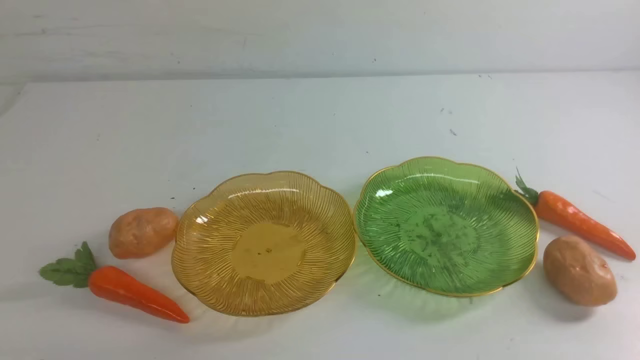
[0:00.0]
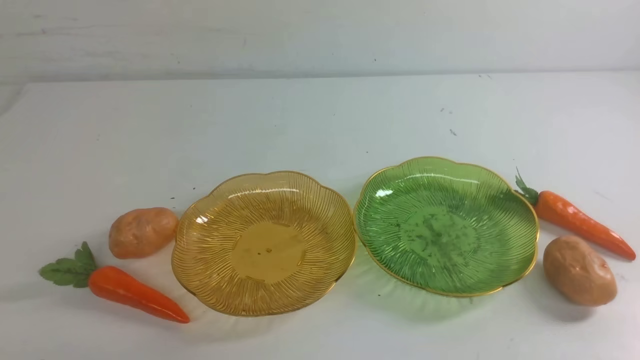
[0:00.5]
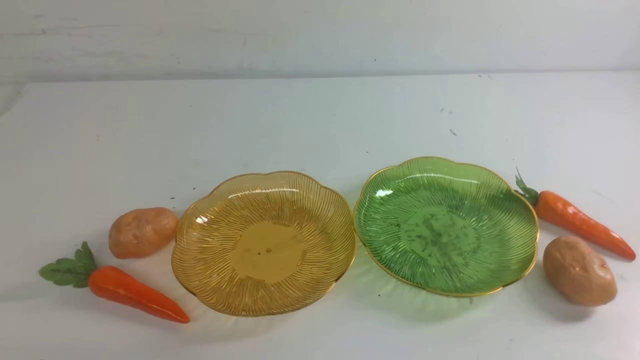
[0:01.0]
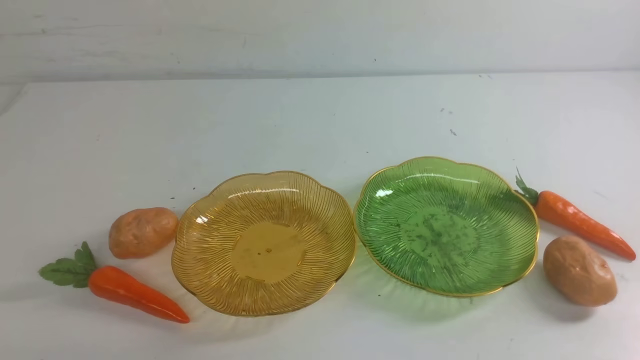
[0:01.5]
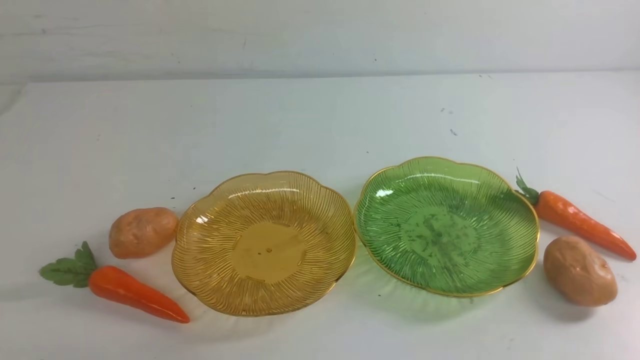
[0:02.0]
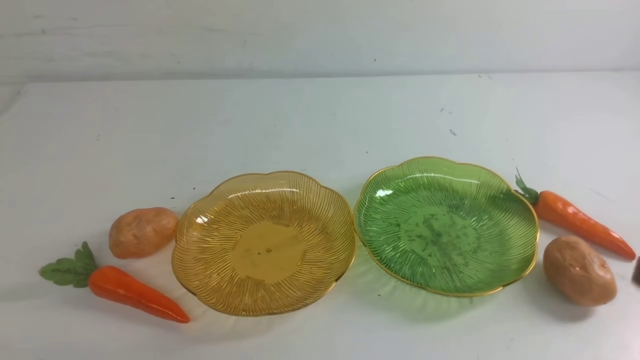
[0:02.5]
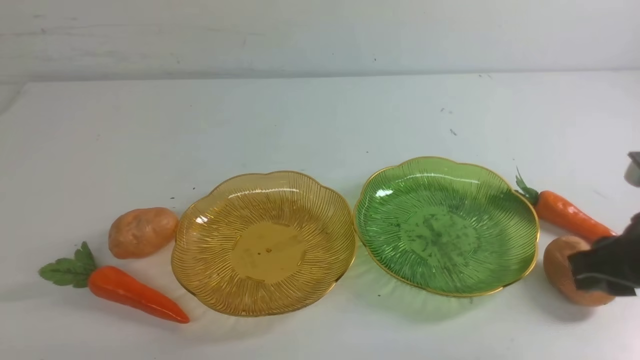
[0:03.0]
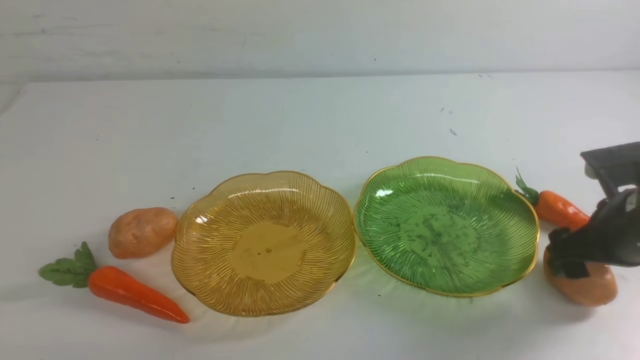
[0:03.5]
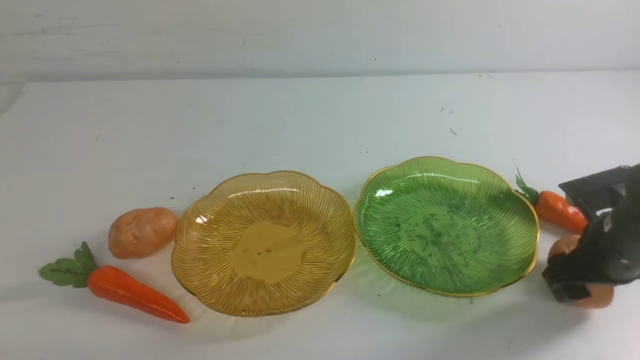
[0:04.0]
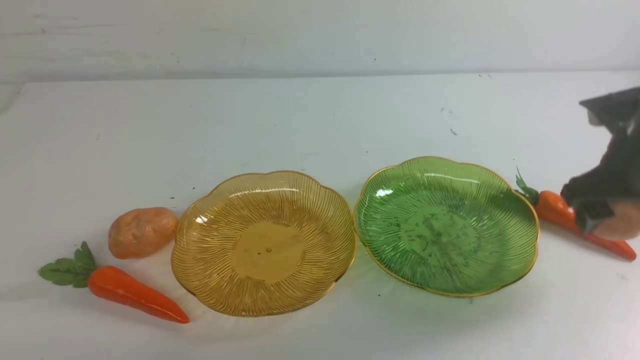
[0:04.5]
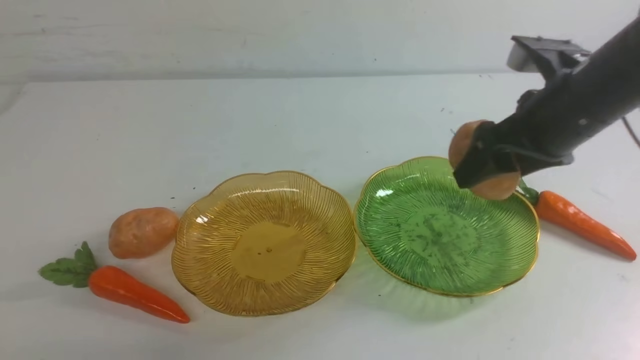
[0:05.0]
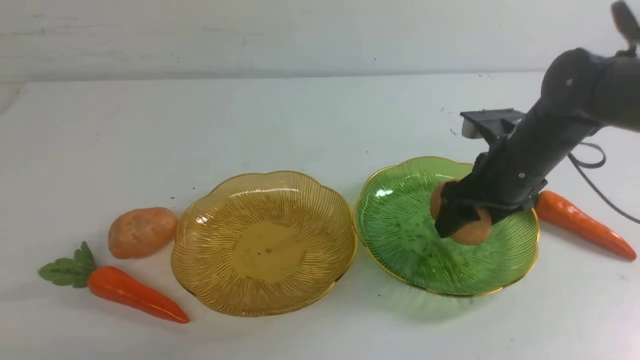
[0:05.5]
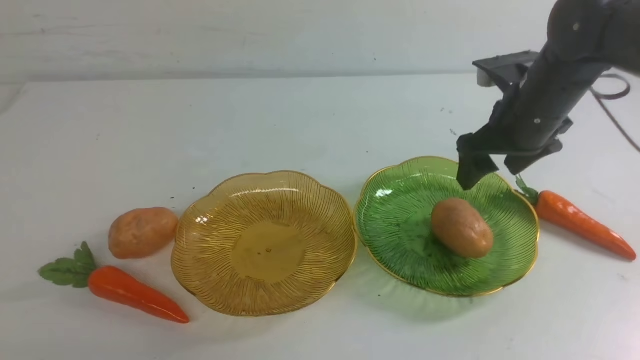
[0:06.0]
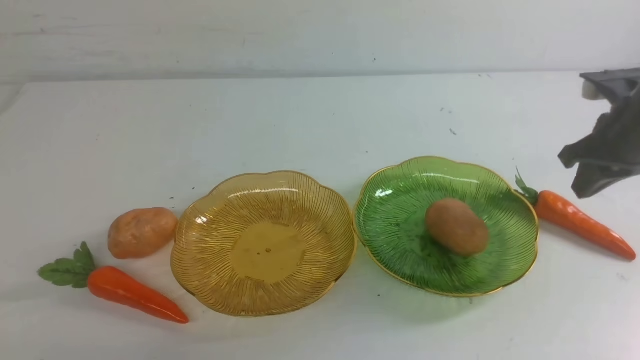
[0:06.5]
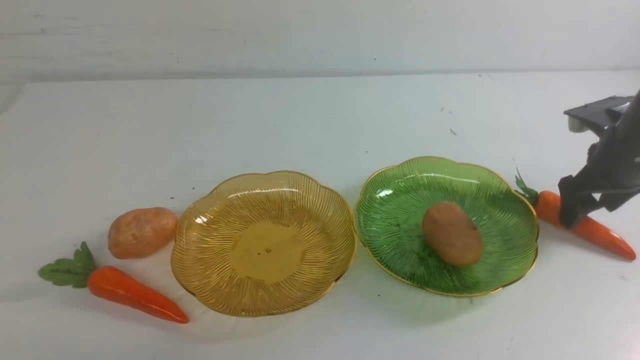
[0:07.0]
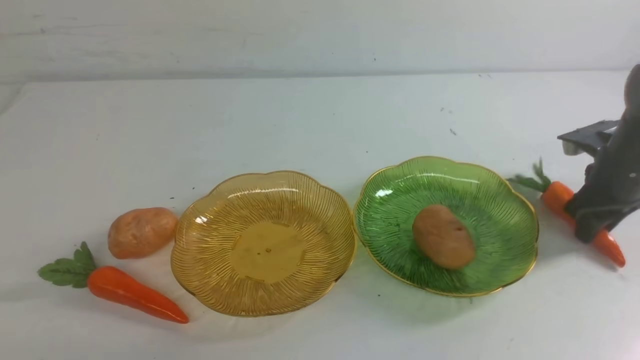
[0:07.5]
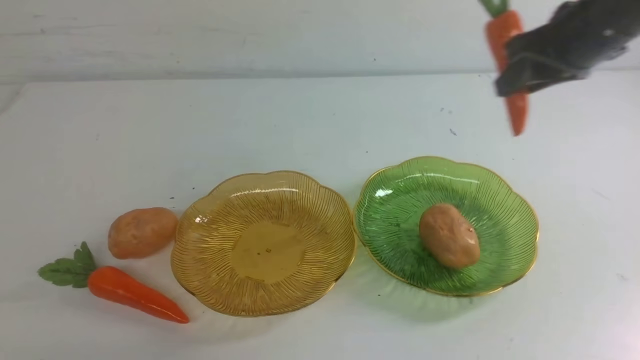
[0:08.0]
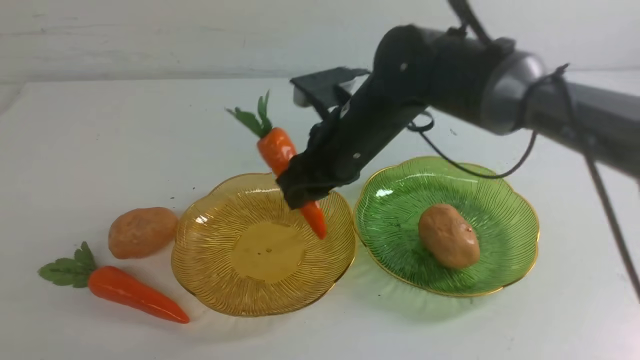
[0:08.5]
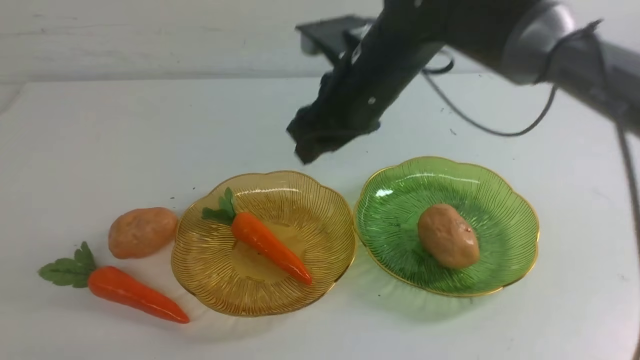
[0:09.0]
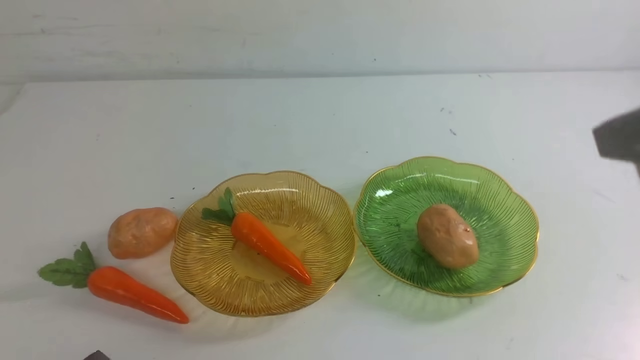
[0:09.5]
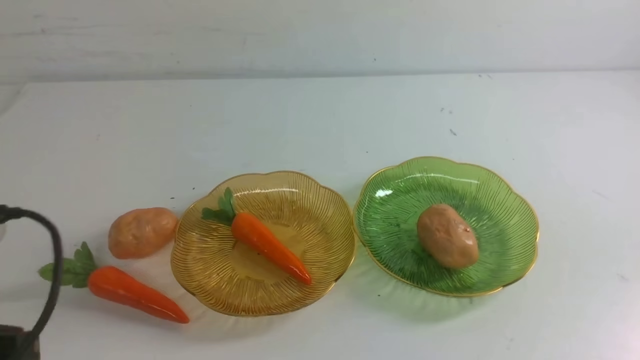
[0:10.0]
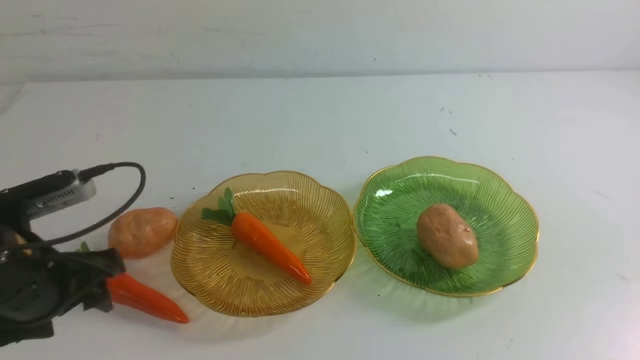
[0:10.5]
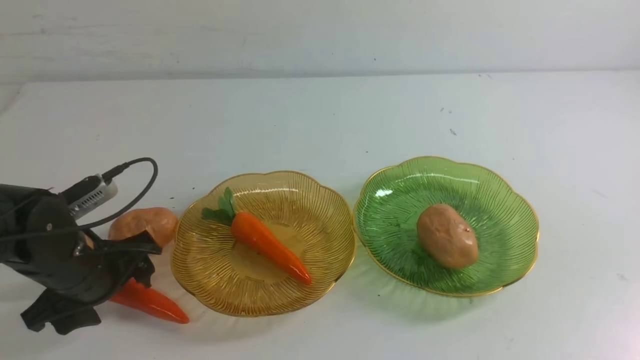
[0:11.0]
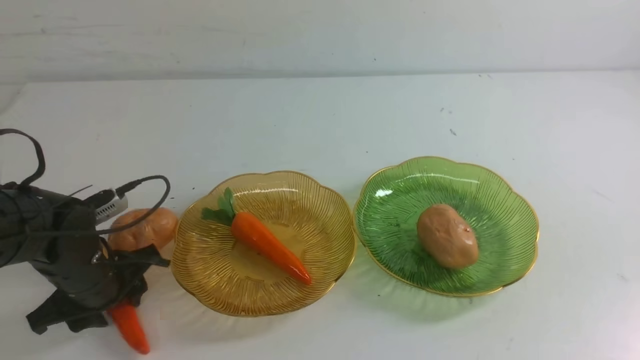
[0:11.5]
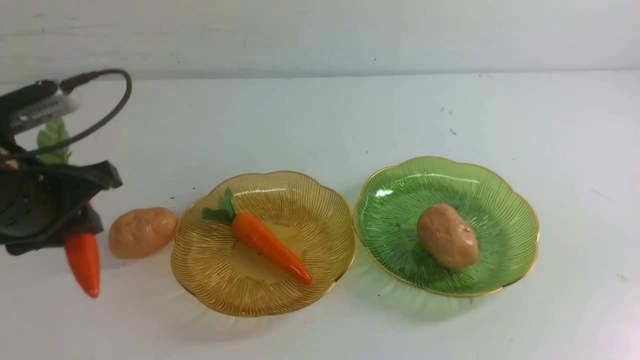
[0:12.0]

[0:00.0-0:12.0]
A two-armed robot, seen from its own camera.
Step, 0:00.0 to 0:05.5: Grab a potato with your right arm and put it on the right plate.
Step, 0:06.0 to 0:08.5: use the right arm to grab a carrot and put it into the left plate.
0:02.0 to 0:04.0: The right gripper travels forward by roughly 25 cm, and opens.
0:04.0 to 0:06.0: The right gripper travels downward, forward and to the right by some 10 cm.
0:06.0 to 0:08.0: The right gripper travels to the left by about 30 cm.
0:08.0 to 0:10.0: The right gripper goes about 40 cm backward, to the right and upward, and closes its fingers. Meanwhile the left gripper travels forward by approximately 20 cm, and opens up.
0:10.0 to 0:12.0: The left gripper is displaced to the right and forward by some 10 cm, travels upward and back again, about 10 cm each way, and closes, then opens again.

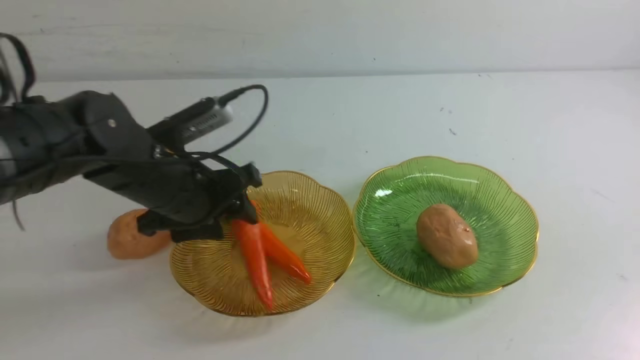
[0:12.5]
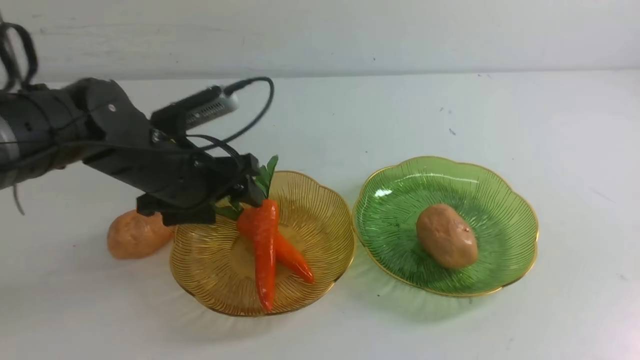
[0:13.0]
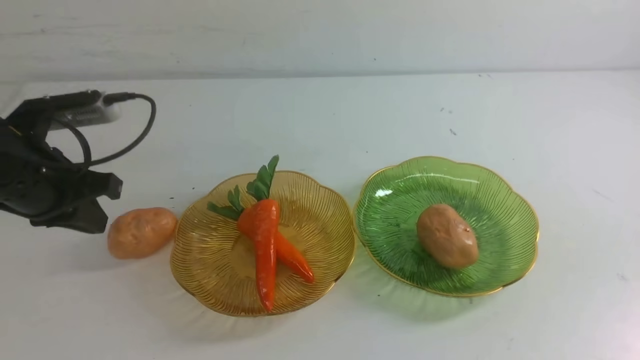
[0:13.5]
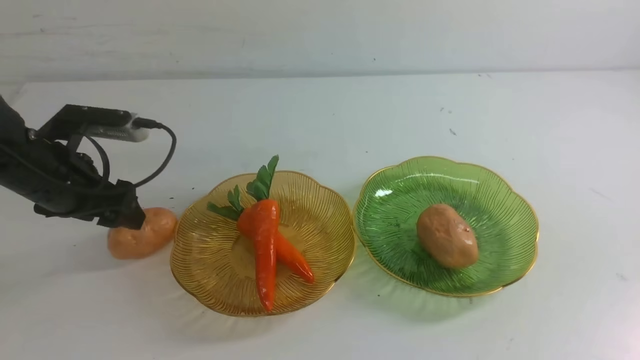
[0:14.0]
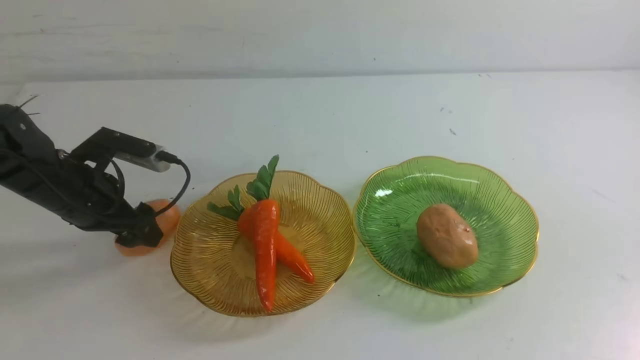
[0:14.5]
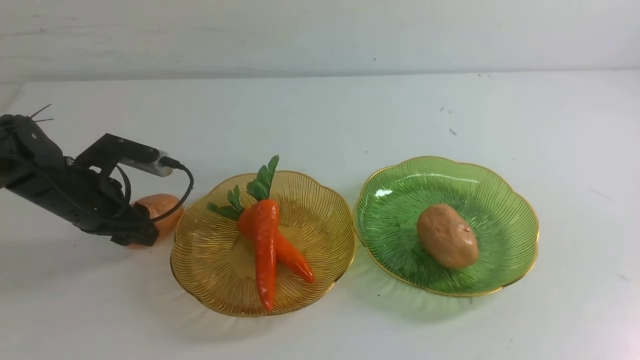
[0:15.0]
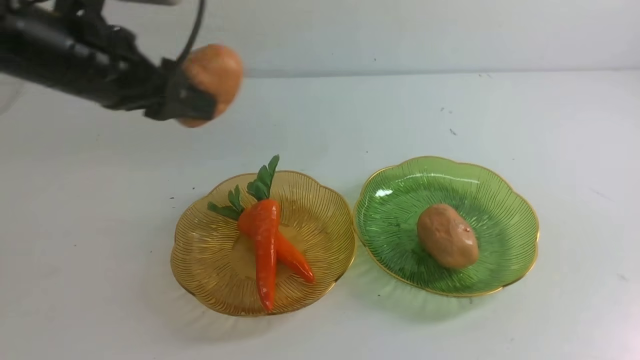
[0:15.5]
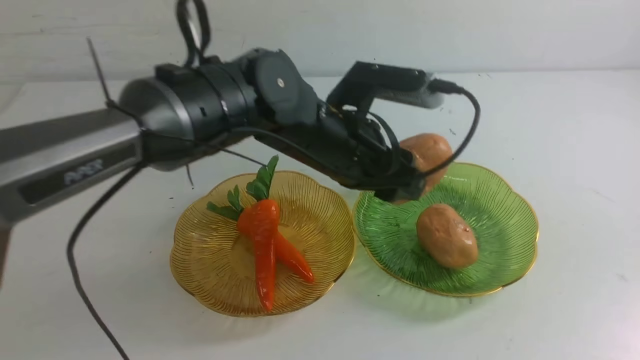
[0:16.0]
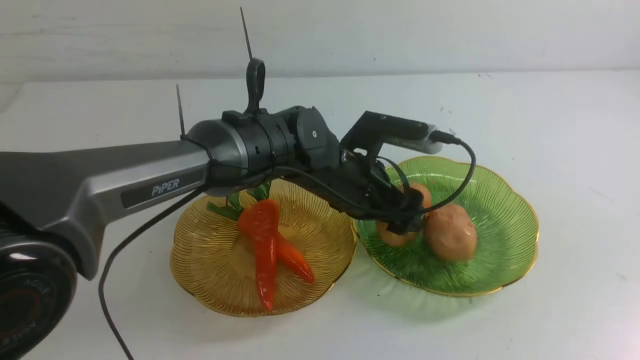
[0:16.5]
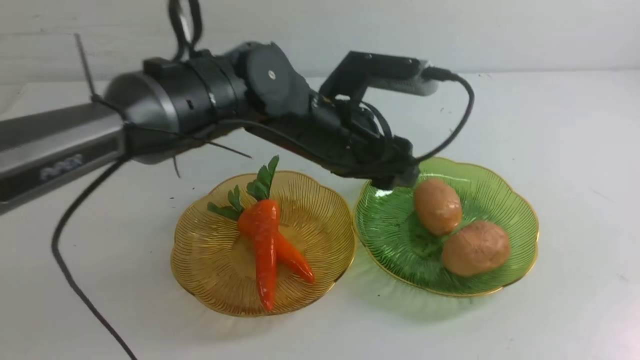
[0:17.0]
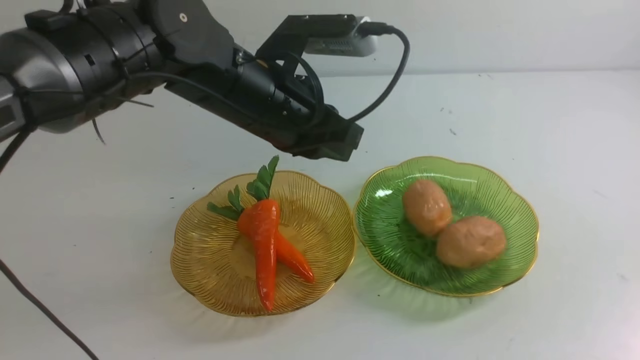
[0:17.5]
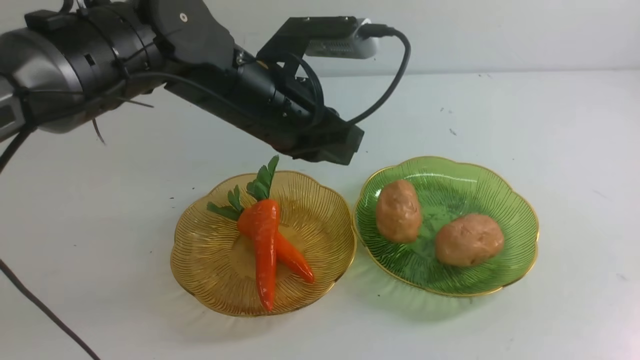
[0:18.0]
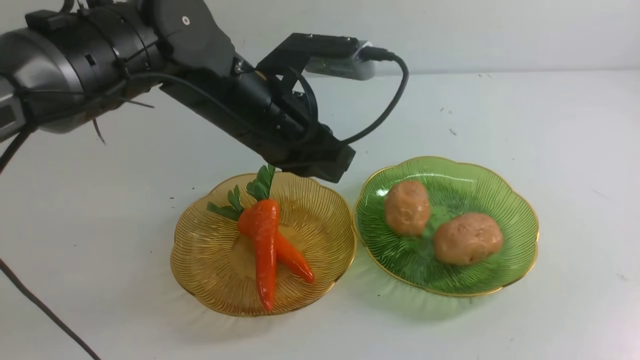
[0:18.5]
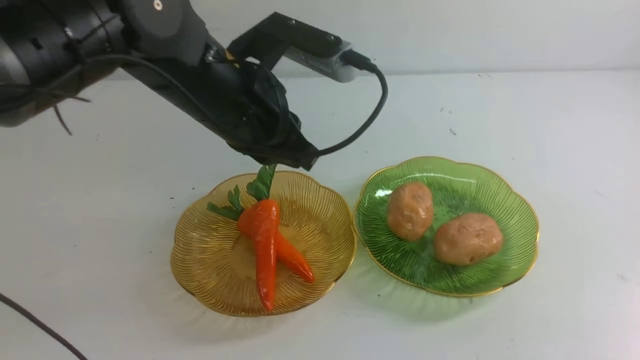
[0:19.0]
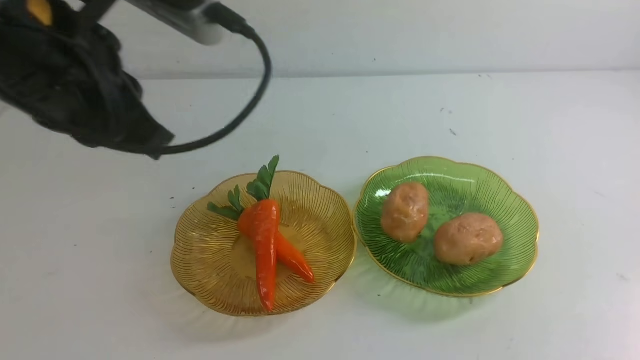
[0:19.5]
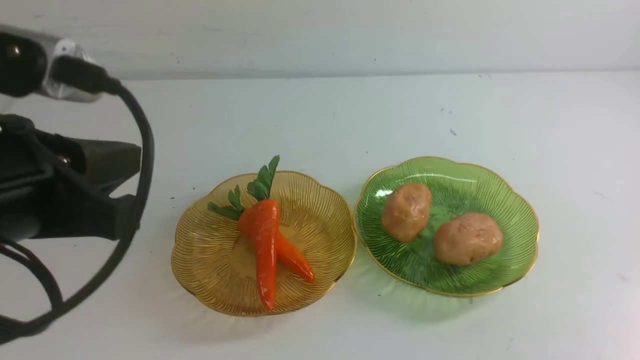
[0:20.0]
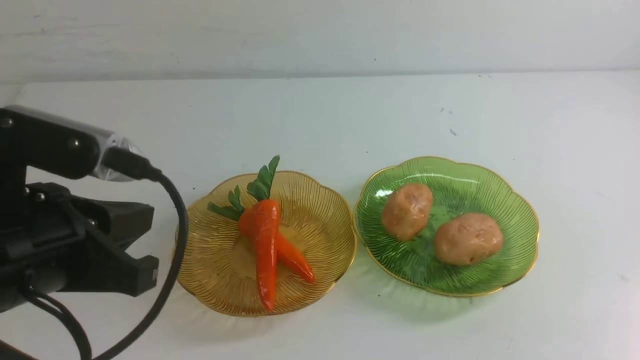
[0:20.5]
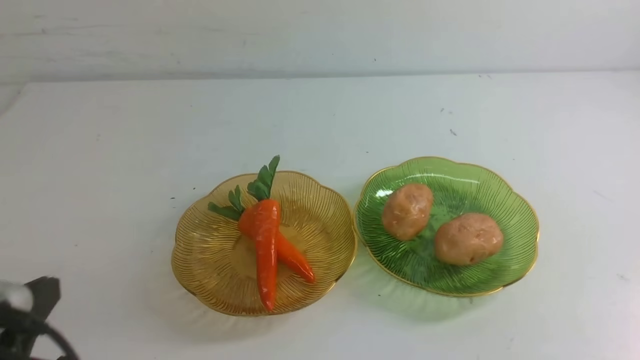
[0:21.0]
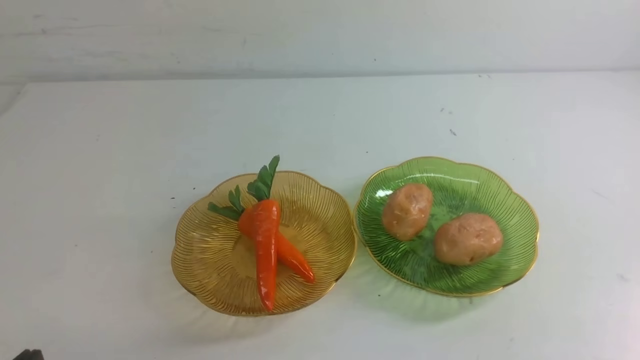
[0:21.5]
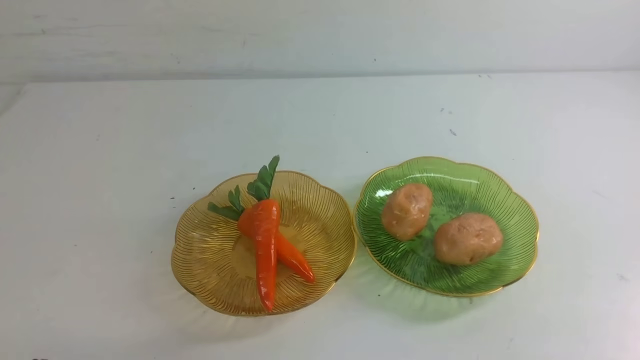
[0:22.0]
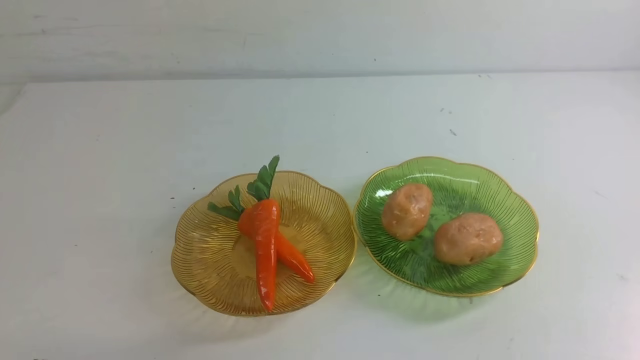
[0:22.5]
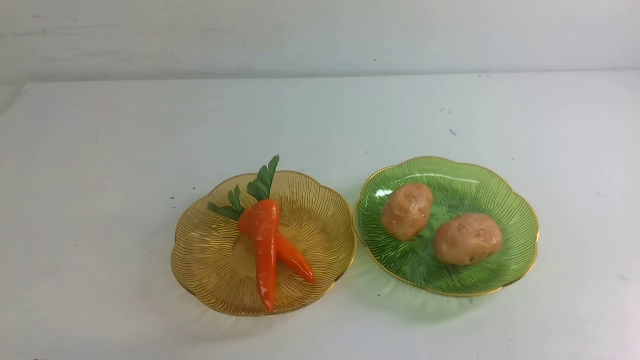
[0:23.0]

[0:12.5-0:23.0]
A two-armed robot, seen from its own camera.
Step, 0:13.5 to 0:17.0: Grab a potato with your left arm and put it on the right plate.
0:12.5 to 0:14.5: The left gripper opens, then closes again.
0:14.5 to 0:16.5: The left gripper is displaced to the right by roughly 25 cm, while the right gripper heads backward, covering roughly 5 cm.
0:16.5 to 0:19.0: The left gripper moves to the left, upward and backward, about 15 cm, and closes up. The right gripper shifts some 20 cm downward.
0:19.0 to 0:21.0: The left gripper goes some 30 cm backward, to the left and downward.
0:21.0 to 0:23.0: The left gripper moves downward, some 5 cm.
